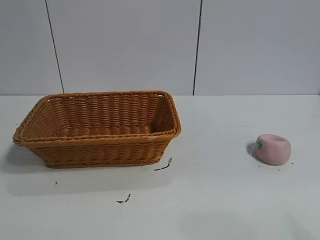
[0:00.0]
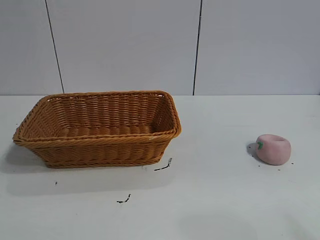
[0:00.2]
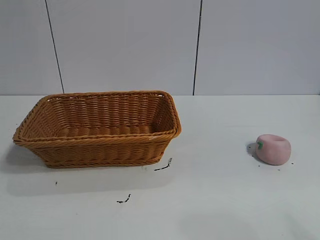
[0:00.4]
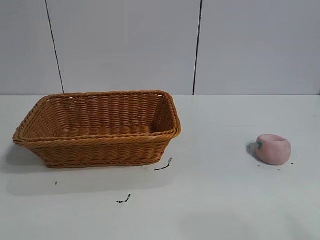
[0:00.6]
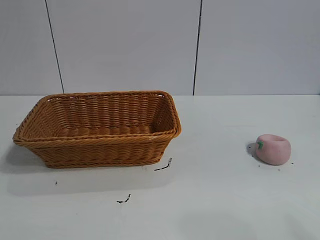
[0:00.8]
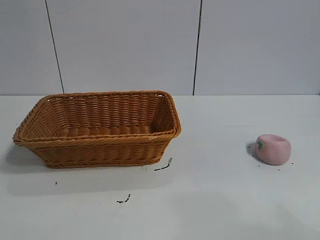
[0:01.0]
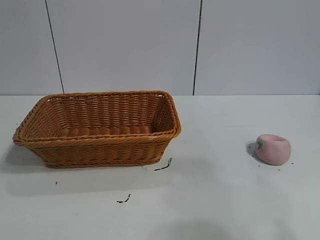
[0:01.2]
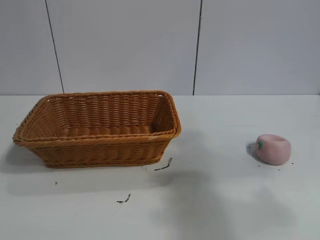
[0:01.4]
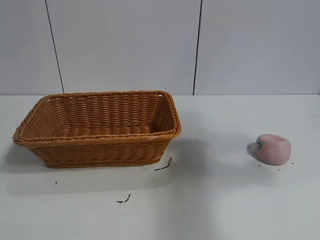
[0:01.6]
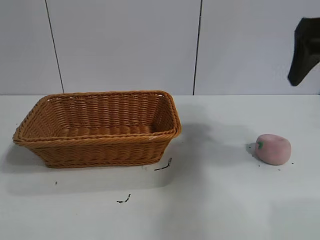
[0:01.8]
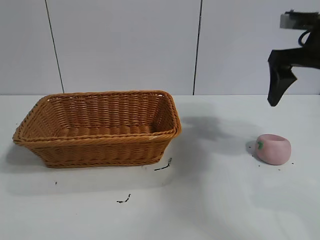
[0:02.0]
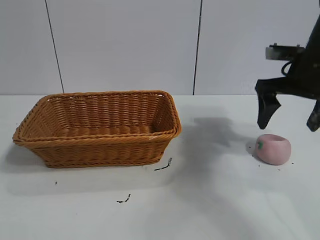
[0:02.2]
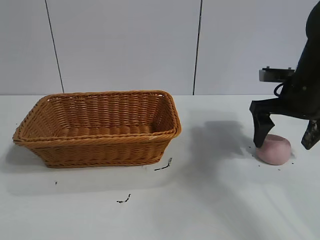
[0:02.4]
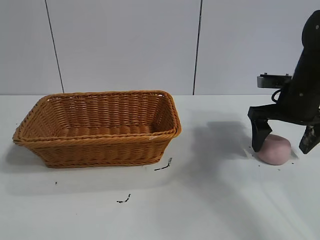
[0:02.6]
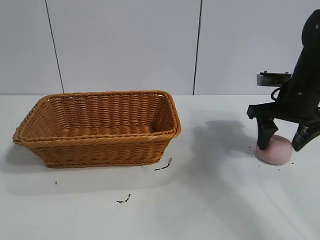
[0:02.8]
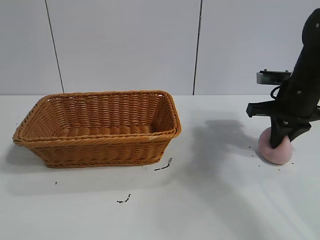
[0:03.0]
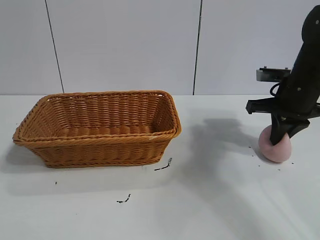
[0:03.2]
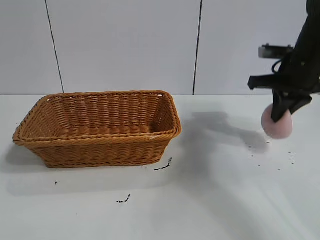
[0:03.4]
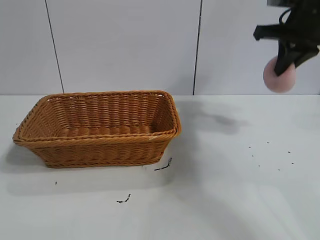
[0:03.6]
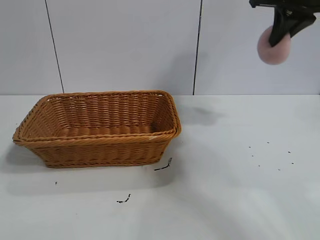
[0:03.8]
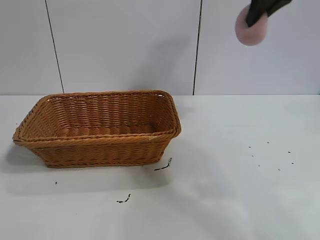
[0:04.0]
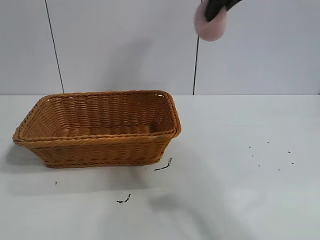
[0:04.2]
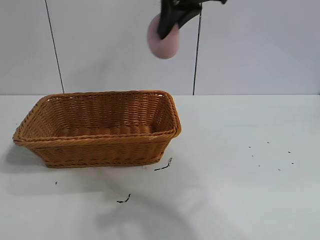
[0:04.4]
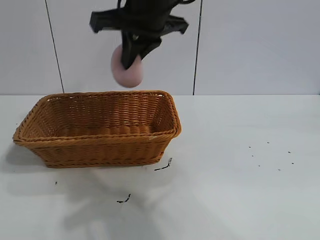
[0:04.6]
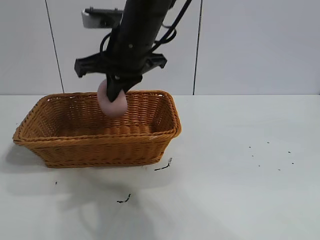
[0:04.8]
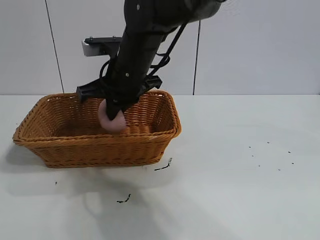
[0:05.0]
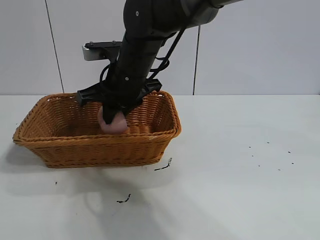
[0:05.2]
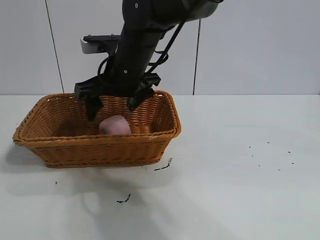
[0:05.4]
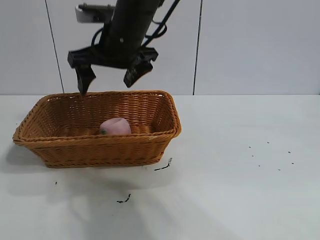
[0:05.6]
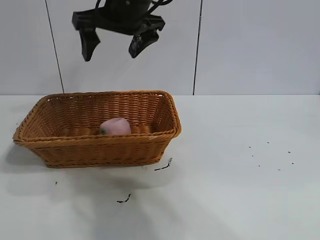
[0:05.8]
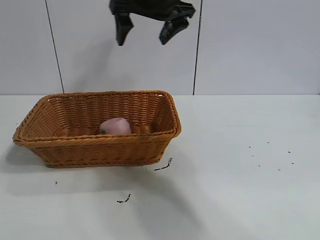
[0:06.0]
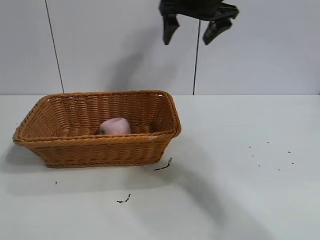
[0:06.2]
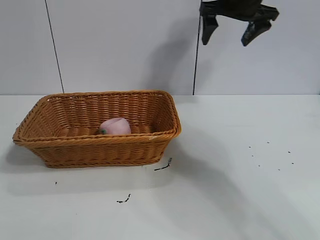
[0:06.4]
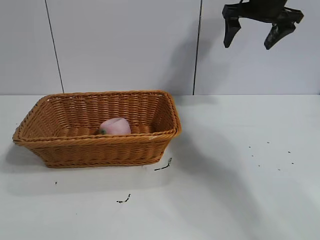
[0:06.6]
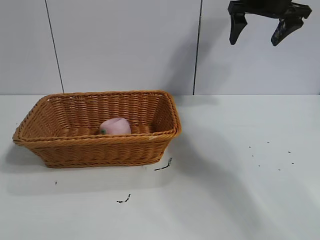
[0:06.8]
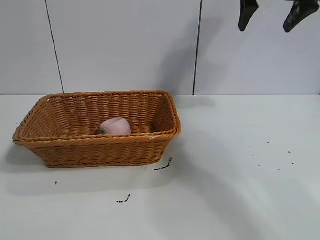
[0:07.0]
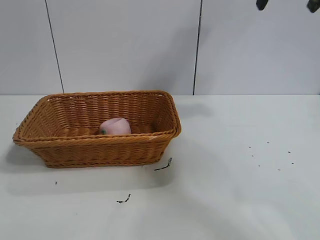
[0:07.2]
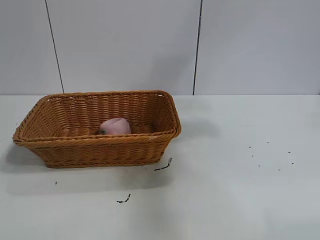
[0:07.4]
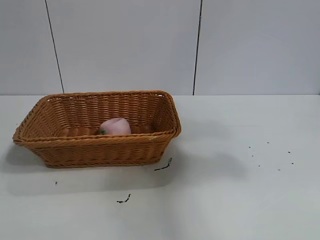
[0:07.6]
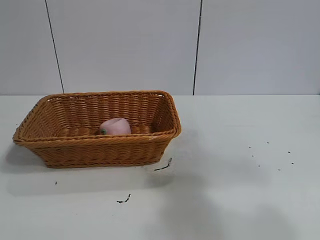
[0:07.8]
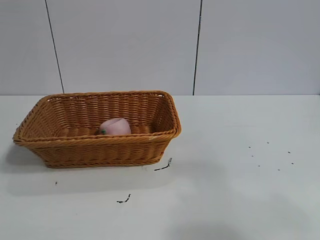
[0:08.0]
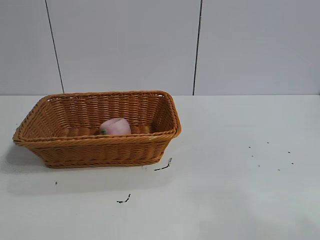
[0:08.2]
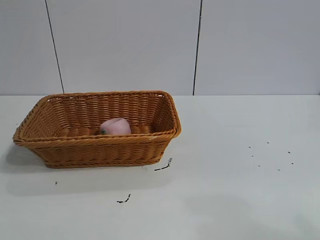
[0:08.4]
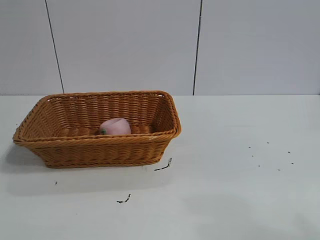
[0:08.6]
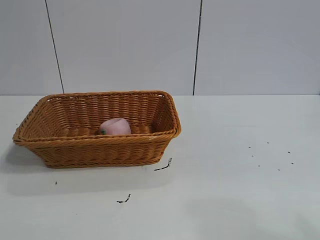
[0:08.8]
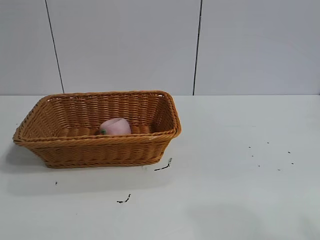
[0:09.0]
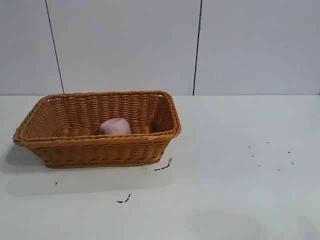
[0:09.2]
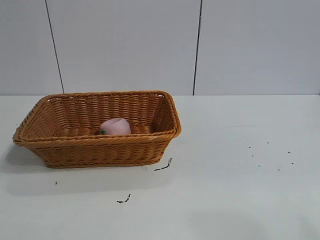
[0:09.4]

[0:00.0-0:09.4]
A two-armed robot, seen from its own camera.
Task of the whole recording: pick up the peach and put it into the basket.
Step, 0:01.0 to 0:03.0: Grasp the peach with right gripper.
Step, 0:03.2 to 0:05.4: Place the peach in the basket with right gripper.
